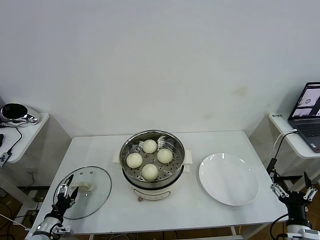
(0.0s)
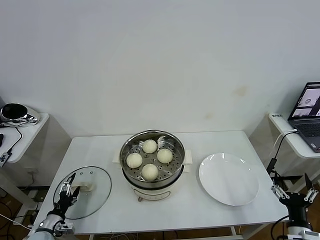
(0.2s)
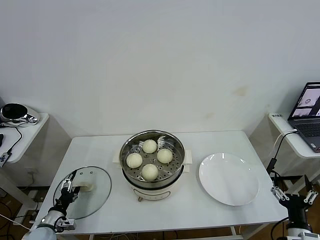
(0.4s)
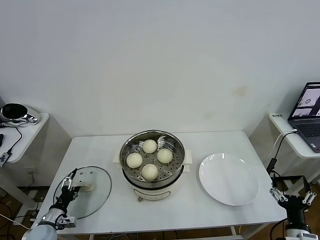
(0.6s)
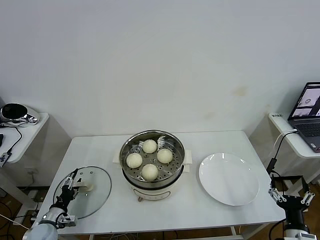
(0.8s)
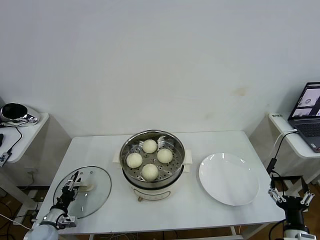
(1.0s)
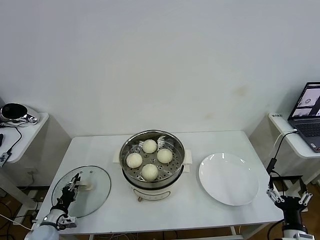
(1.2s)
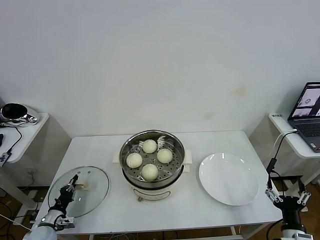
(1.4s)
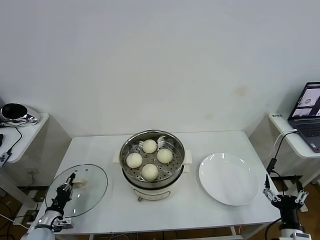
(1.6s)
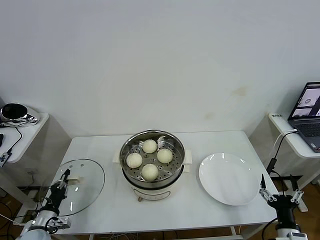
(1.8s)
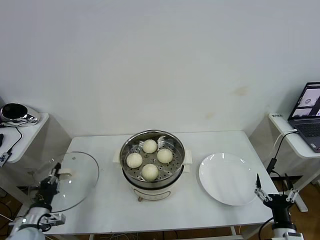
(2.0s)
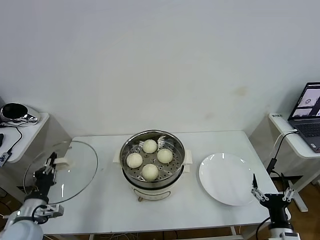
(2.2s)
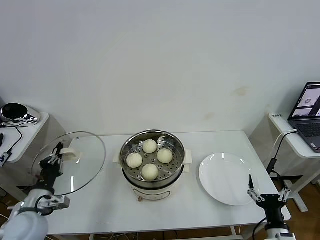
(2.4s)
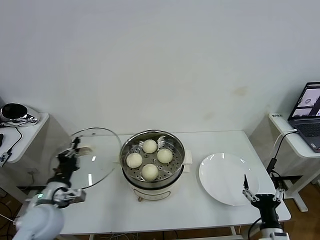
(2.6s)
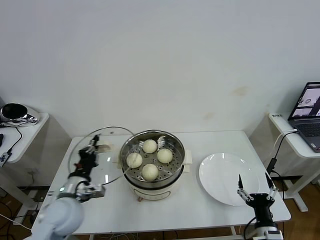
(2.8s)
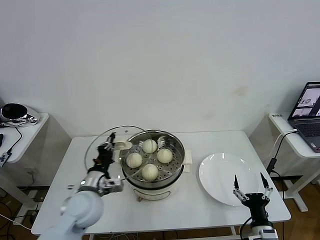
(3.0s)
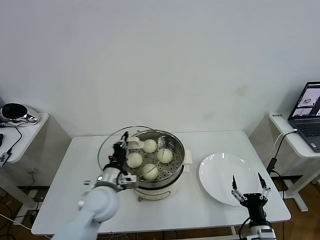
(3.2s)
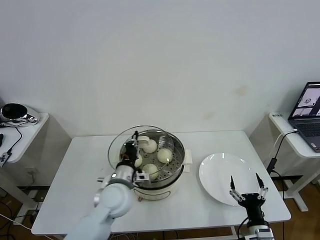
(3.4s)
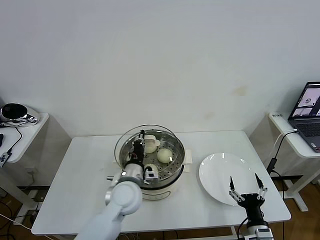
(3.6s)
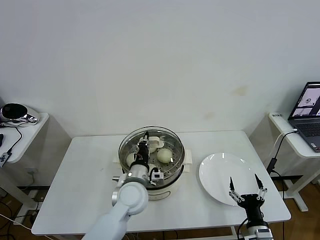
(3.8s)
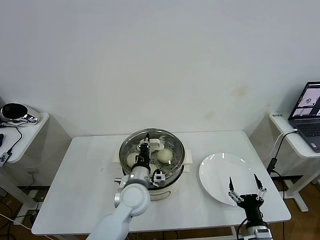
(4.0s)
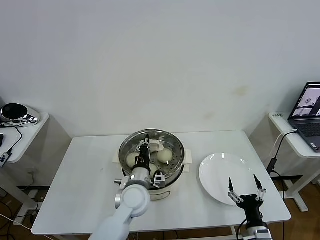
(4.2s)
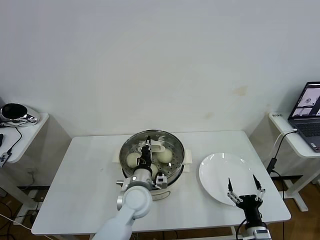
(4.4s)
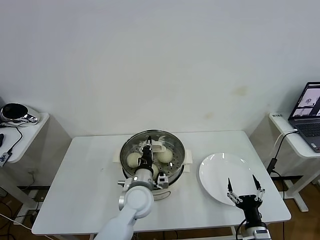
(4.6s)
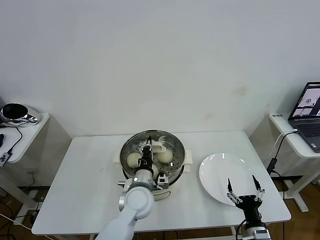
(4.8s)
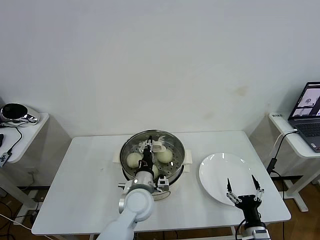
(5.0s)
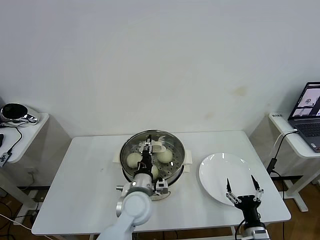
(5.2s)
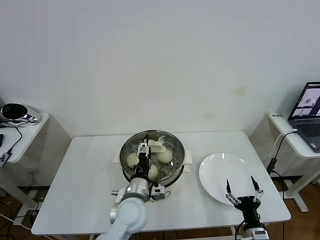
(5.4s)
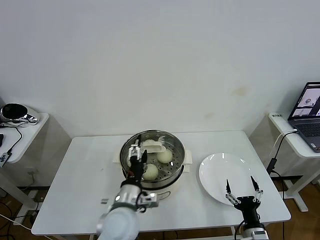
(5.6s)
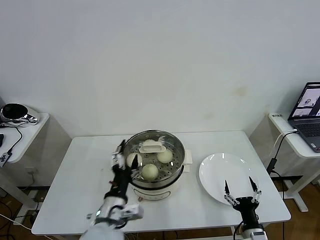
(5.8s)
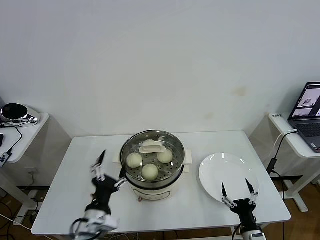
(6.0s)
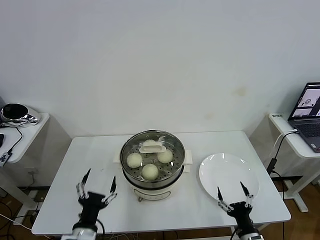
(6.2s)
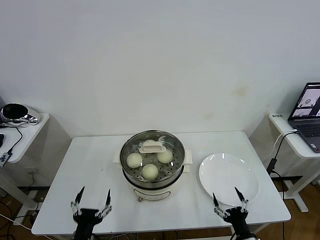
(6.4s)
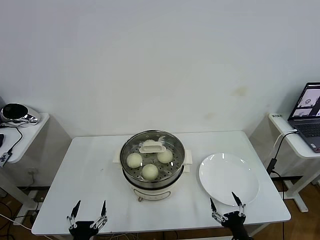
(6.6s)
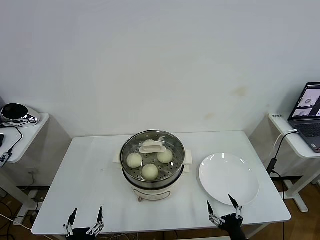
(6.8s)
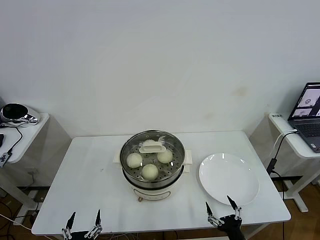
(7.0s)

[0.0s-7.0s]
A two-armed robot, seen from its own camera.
Task of the whole recording: take steamed baozi put them in steamer then cover it.
Step, 1.8s to 5.4s: Place the pot lid on the steamer with left gripper.
0.0s to 1.4s: The left gripper closes its fingers.
1.4s to 2.8s: The right gripper heads to the left, covering about 5 cm. The left gripper shifts approximately 25 cm upward and to the right.
2.8s to 4.2s: The left gripper moves to the right, some 20 cm.
4.2s to 5.6s: The left gripper moves backward, some 5 cm, and opens.
5.6s to 7.0s: The right gripper moves about 5 cm, while the left gripper travels backward, to the left and downward by approximately 25 cm.

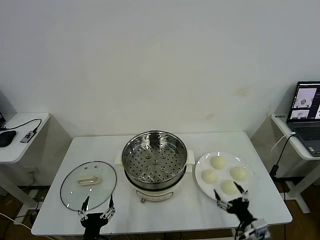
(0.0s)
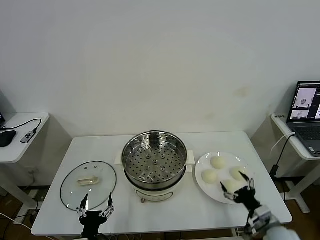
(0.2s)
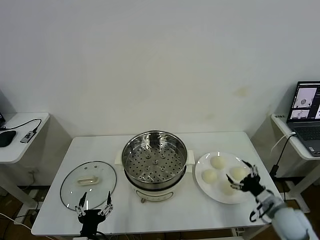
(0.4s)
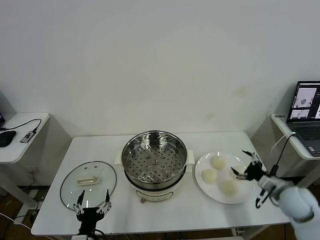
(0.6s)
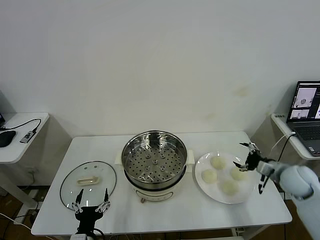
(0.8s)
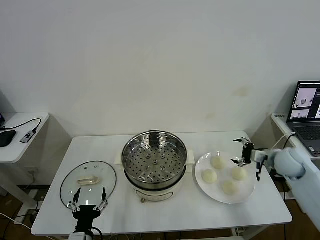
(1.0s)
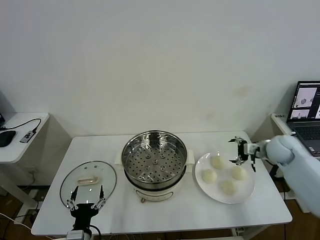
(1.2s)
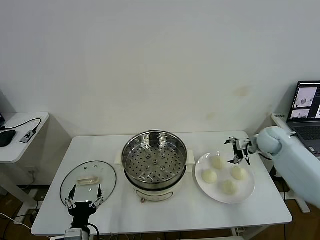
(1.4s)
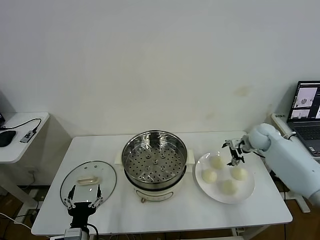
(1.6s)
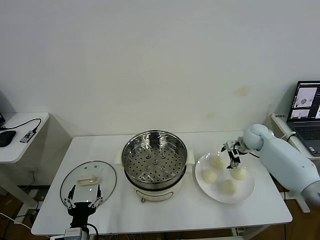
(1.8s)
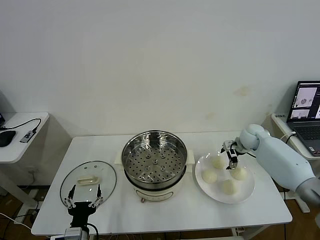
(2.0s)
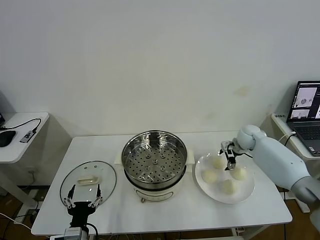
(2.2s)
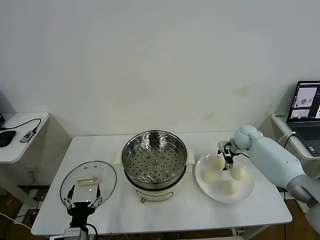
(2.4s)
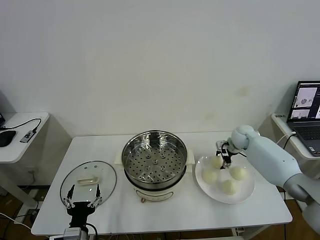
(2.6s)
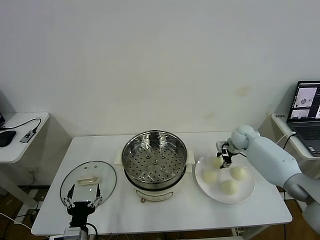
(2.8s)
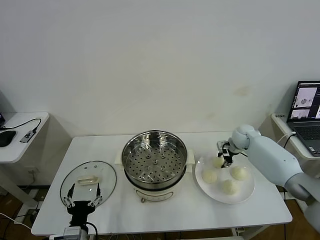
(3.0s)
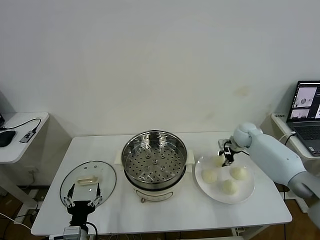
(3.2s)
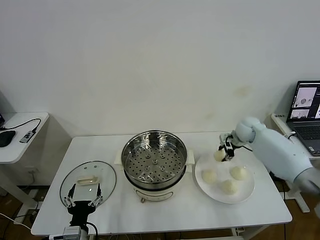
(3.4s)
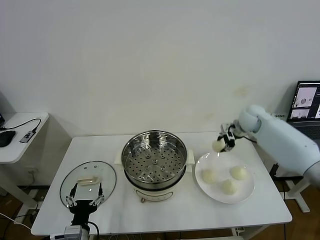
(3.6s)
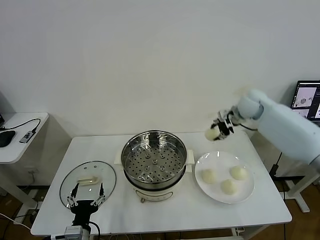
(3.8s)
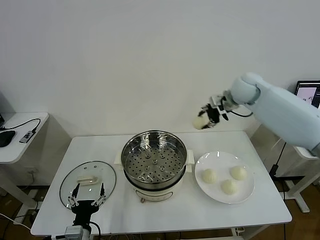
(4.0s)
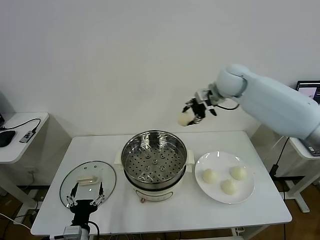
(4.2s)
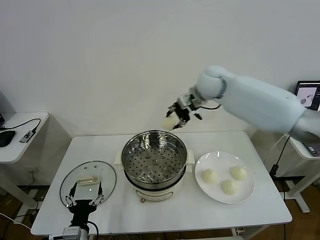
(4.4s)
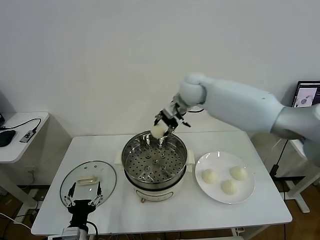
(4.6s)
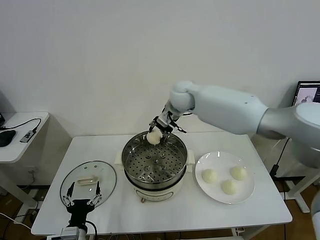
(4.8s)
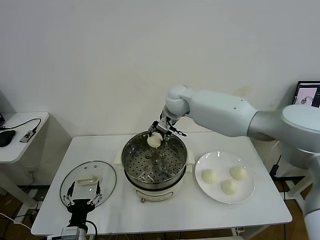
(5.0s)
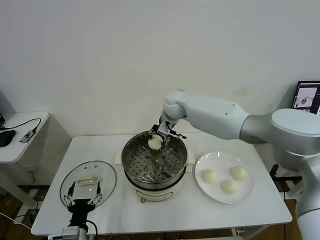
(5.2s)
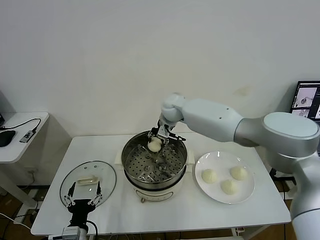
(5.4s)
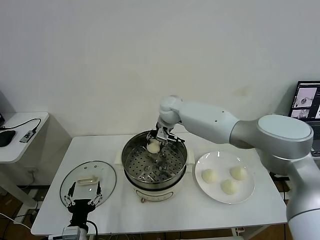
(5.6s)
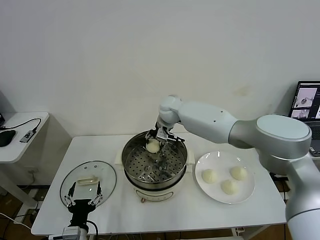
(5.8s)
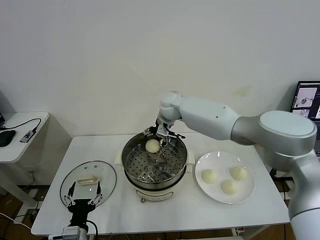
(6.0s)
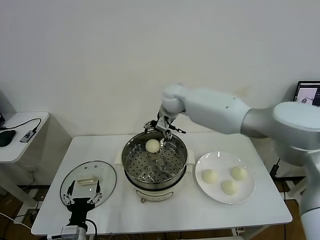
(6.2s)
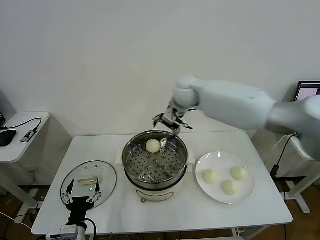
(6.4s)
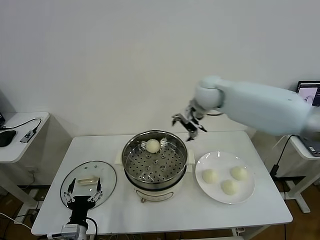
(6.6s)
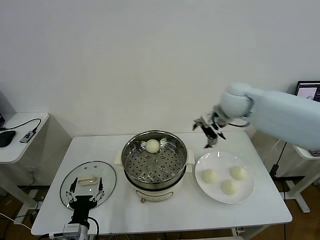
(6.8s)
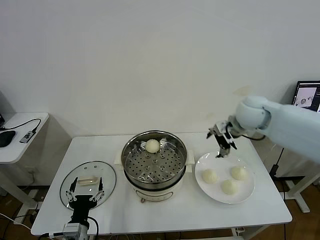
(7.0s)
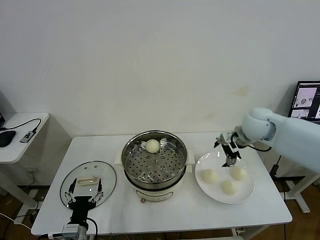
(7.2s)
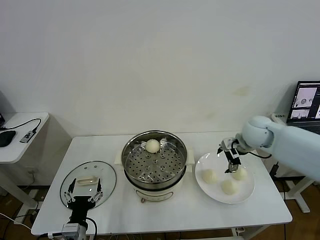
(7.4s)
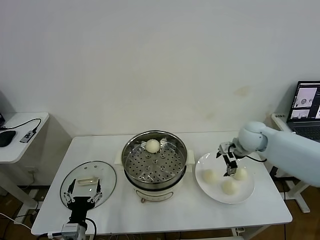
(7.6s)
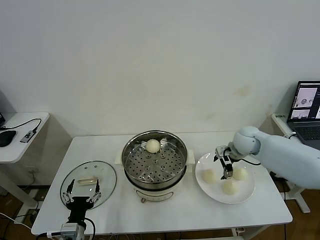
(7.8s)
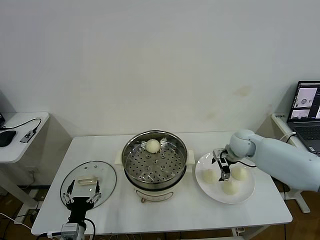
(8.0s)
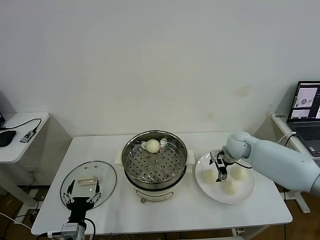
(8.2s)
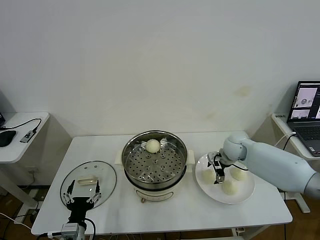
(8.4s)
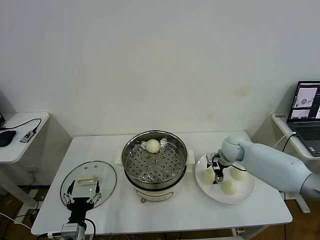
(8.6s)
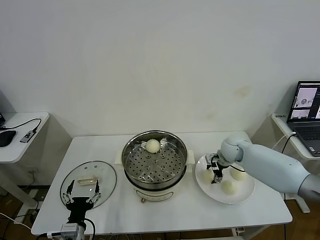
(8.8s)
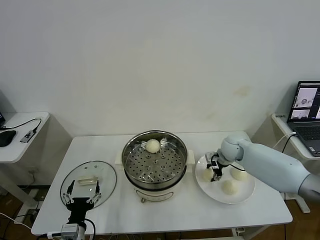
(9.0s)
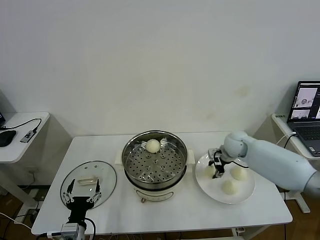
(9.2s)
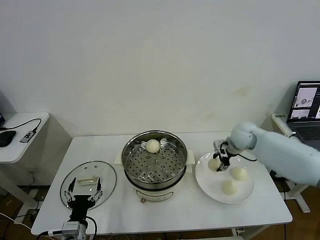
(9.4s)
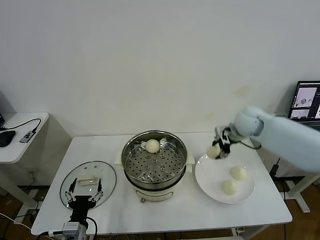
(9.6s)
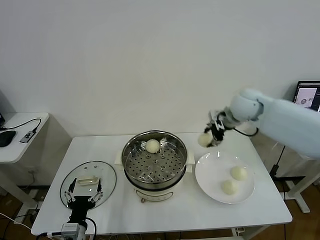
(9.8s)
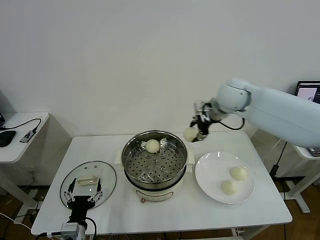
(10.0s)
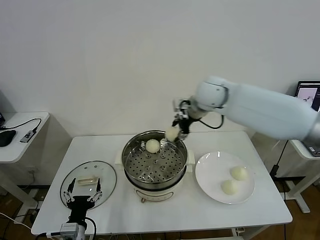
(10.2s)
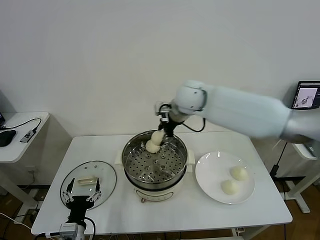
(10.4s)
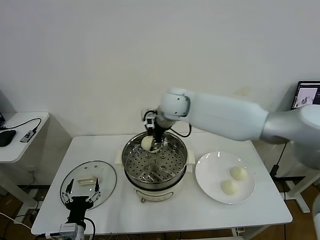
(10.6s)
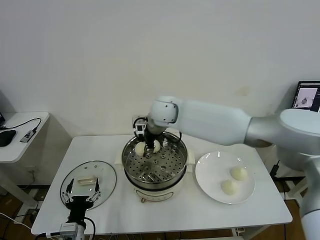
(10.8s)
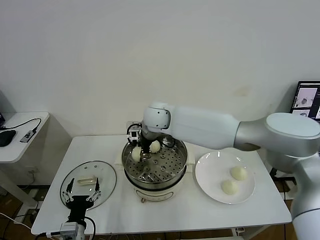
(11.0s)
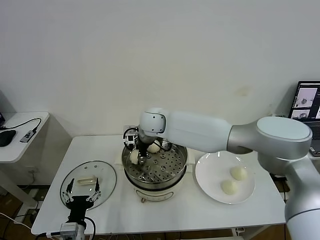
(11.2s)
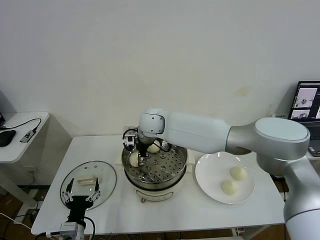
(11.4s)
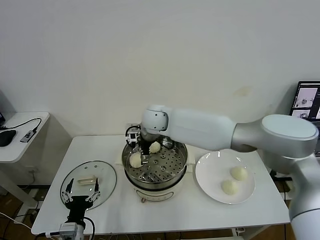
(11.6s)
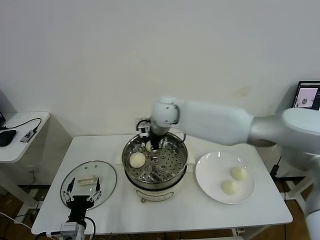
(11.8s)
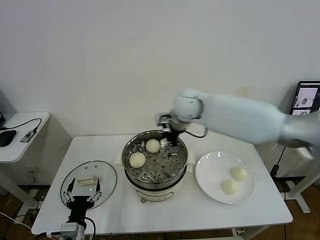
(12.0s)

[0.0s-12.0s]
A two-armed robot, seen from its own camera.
Task of the whole recording: take steamed baozi put them in steamer then cover it.
Step, 0.0s to 3.0s: Grasp the baozi in the plate with right gripper.
Step, 3.2s to 6.0s: Place the baozi on the steamer with right gripper.
Step, 6.2s to 9.0s: Grasp the baozi in the plate with right gripper.
Step, 9.2s to 11.6s: Place the baozi on the steamer with right gripper.
1.6s to 3.0s: The right gripper ends up about 5 cm from where it was, and closes up.
3.0s to 4.4s: The right gripper is displaced upward and to the left by roughly 30 cm.
4.4s to 6.0s: The right gripper goes approximately 15 cm to the left and downward, and opens.
6.0s to 7.6s: The right gripper moves to the right, about 25 cm.
7.6s to 9.0s: The right gripper travels downward by roughly 10 cm, and closes its fingers.
9.0s to 10.4s: The right gripper heads upward and to the left, covering about 30 cm.
10.4s to 12.0s: The right gripper reaches about 10 cm to the left, then returns, and opens its fingers.

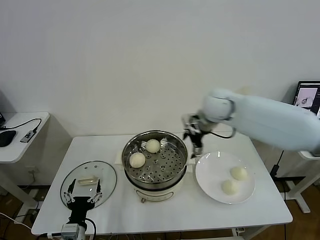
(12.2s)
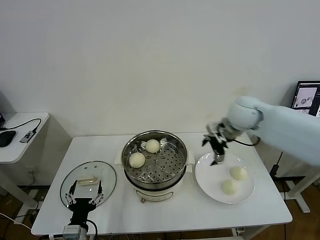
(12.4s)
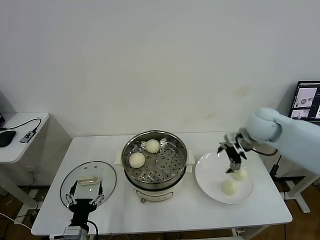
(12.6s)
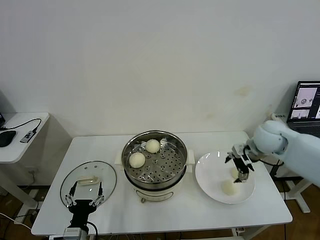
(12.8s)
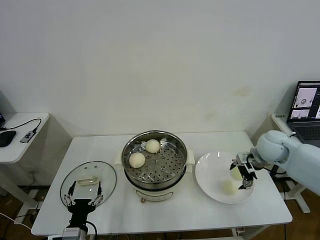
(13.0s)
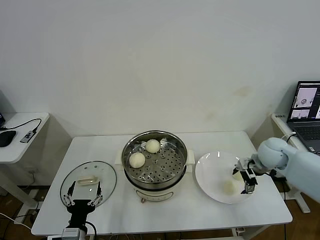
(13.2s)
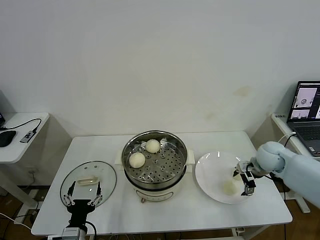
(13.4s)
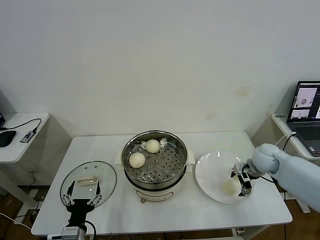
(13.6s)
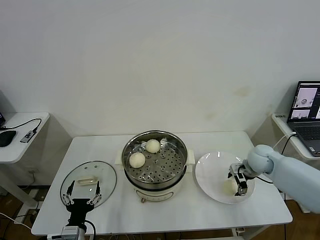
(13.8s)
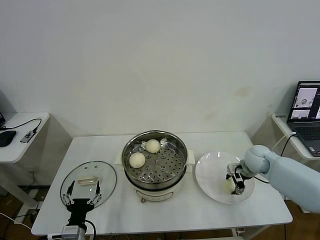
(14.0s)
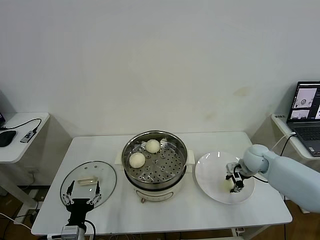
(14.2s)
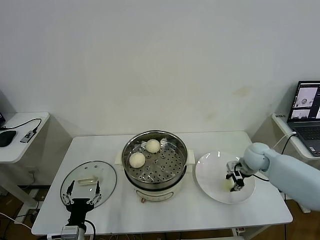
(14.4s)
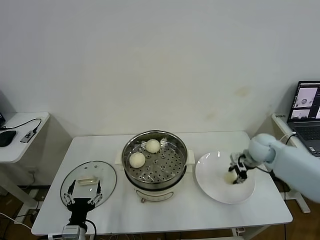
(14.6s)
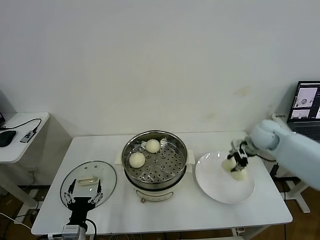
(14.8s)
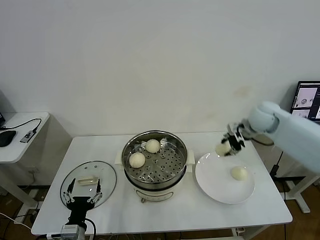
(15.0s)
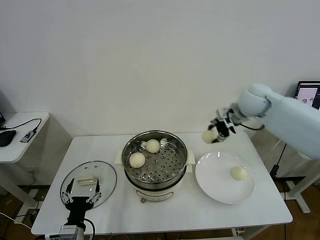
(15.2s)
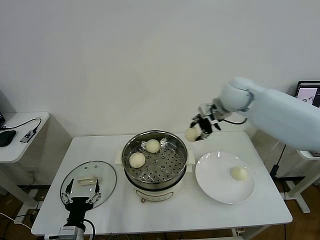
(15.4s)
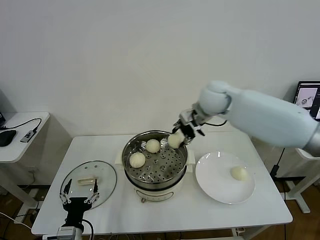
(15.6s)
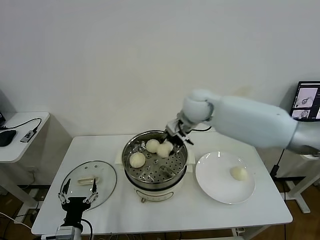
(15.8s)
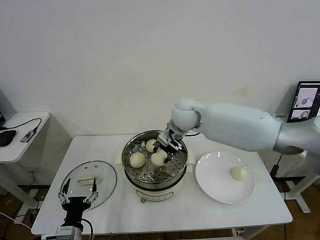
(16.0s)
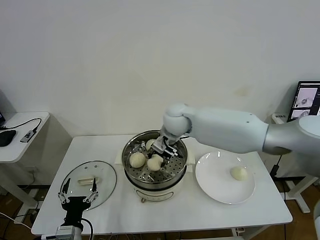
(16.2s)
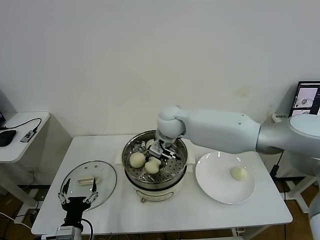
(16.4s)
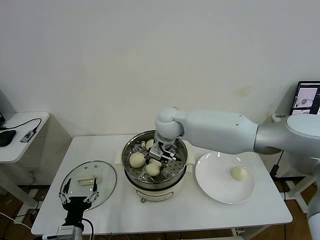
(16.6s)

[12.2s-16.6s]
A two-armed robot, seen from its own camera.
Task of the whole recording: take steamed baozi put them in steamer then cover it.
Step, 12.2s to 14.4s: Grasp the baozi in the plate with right gripper.
12.2s to 13.6s: The right gripper moves to the right and downward, roughly 25 cm.
13.6s to 15.2s: The right gripper goes roughly 25 cm upward, to the left and forward, and closes its fingers.
15.2s to 16.6s: The right gripper heads to the left, covering about 25 cm.
